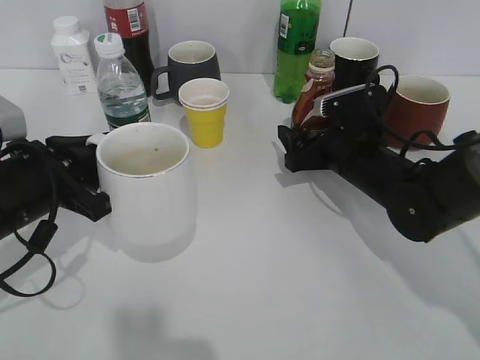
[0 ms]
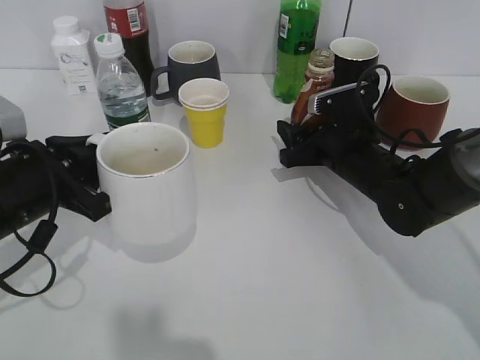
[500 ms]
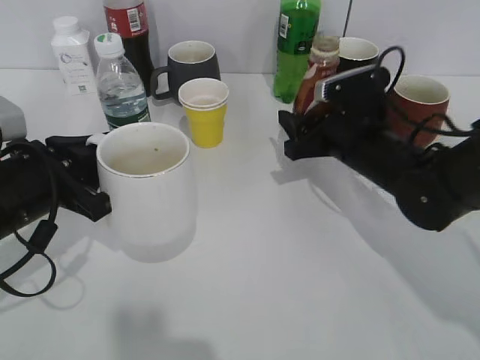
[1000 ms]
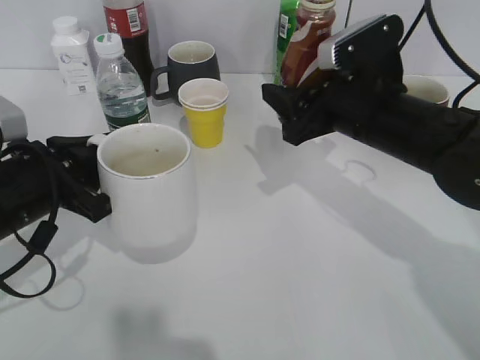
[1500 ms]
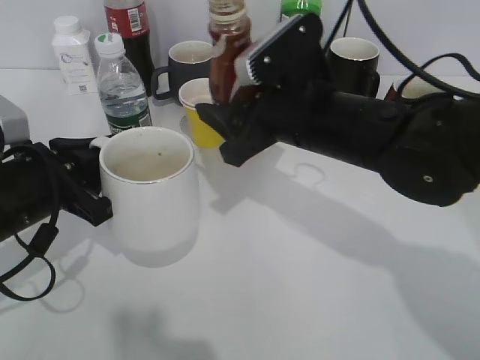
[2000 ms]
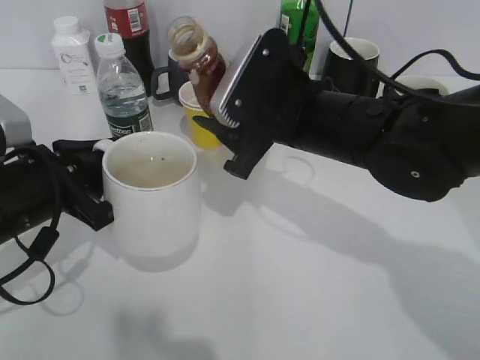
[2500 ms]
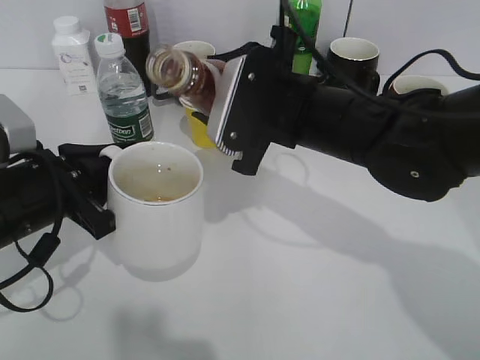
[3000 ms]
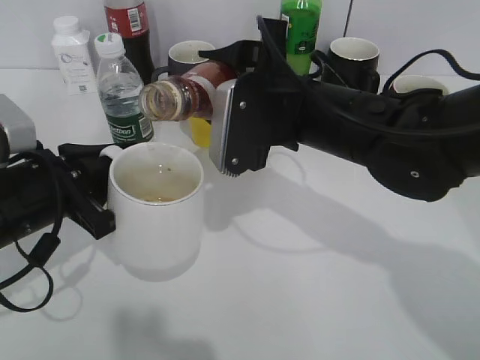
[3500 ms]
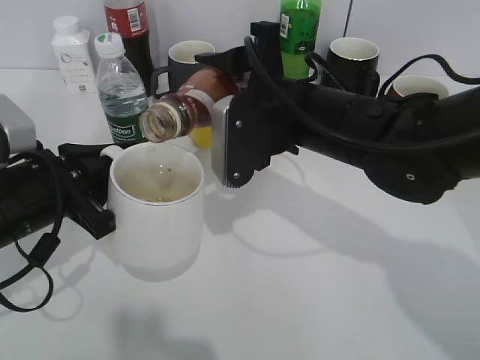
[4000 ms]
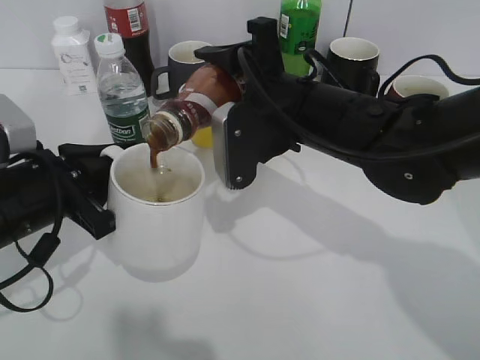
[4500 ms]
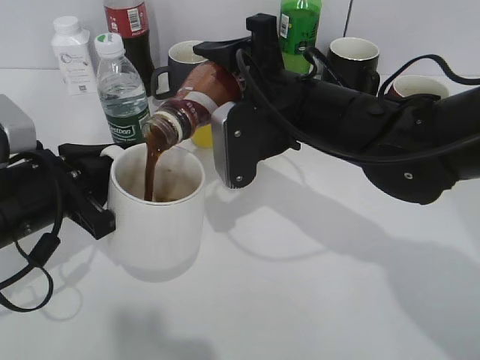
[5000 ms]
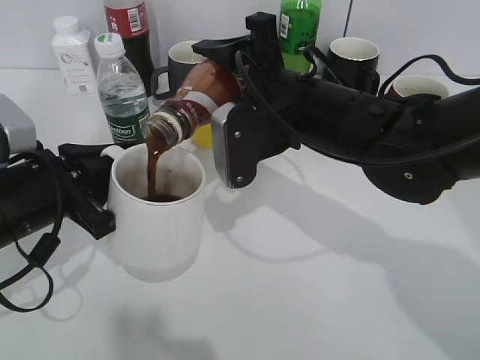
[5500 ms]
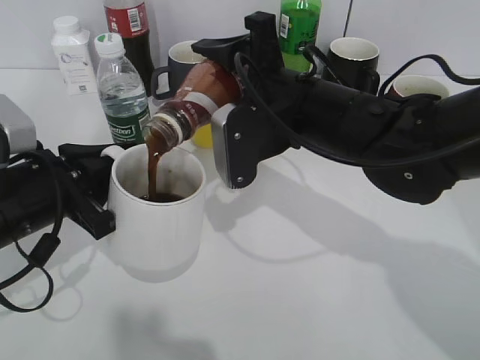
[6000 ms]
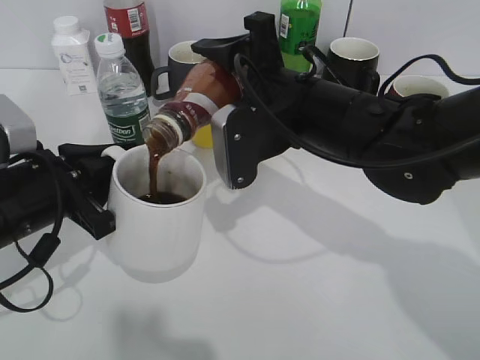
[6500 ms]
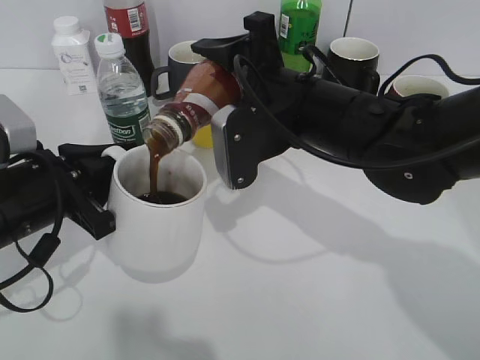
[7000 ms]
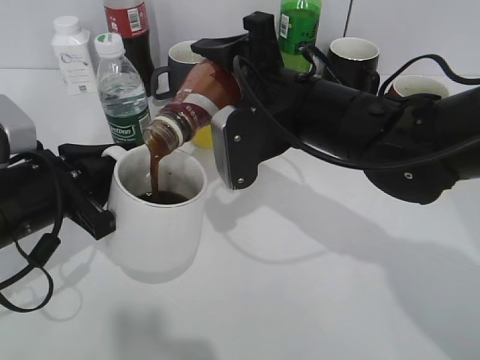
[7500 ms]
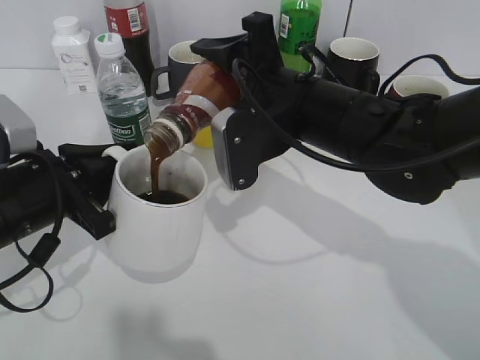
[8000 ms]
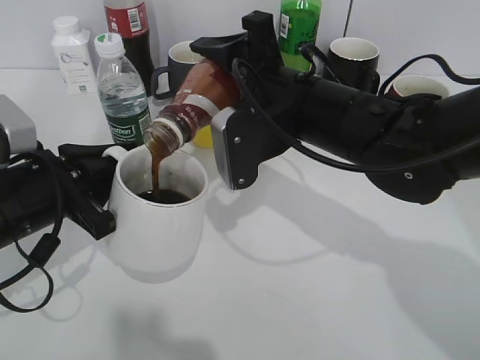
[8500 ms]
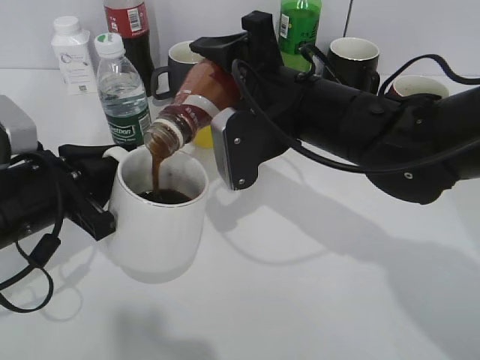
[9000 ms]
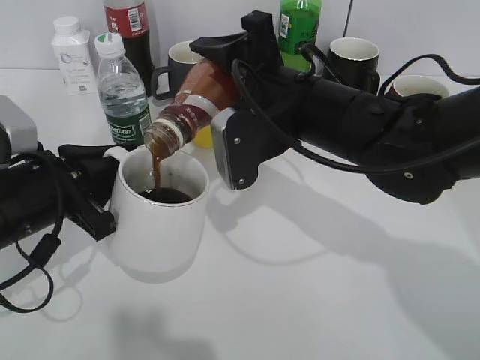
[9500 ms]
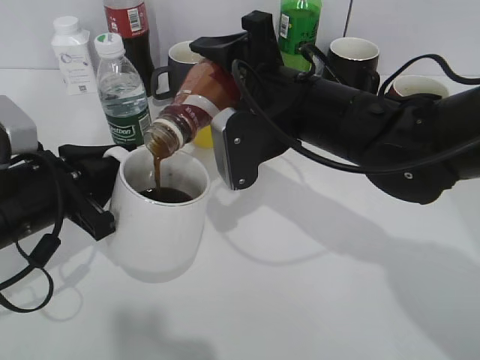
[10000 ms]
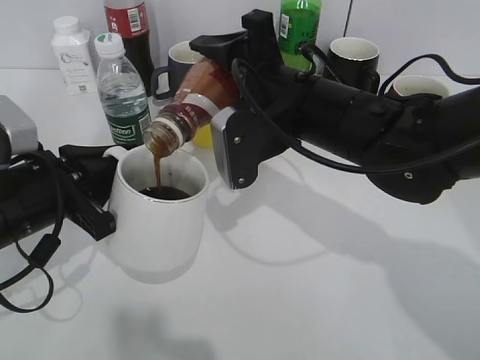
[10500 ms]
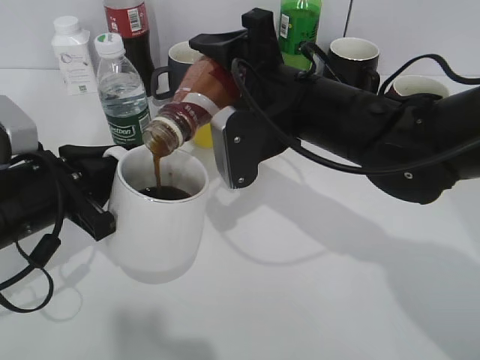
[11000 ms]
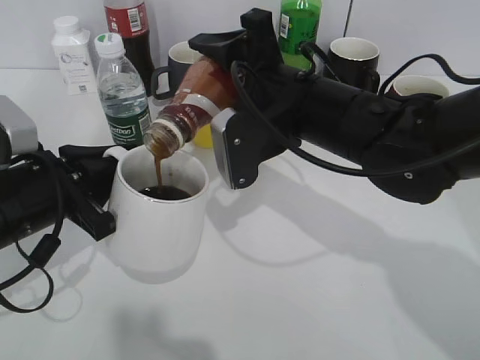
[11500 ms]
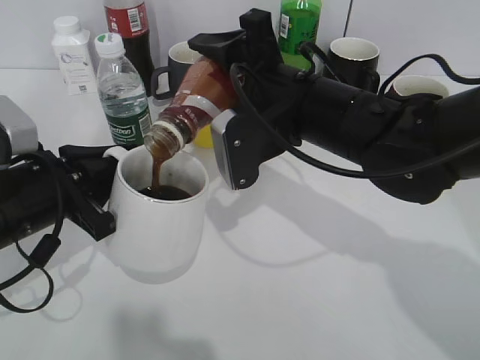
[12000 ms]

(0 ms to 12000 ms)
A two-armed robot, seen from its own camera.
0 ms - 2000 ms: The right gripper travels upward, to the left and backward by some 15 cm, and closes its fingers.
4000 ms - 6000 ms: There are only small adjustments of the grippers.
6000 ms - 10000 ms: Both grippers stay about where they are.
10000 ms - 12000 ms: Both grippers stay put.

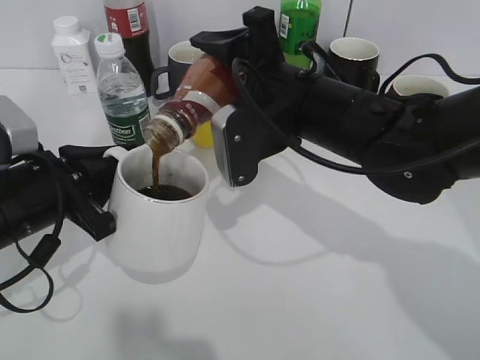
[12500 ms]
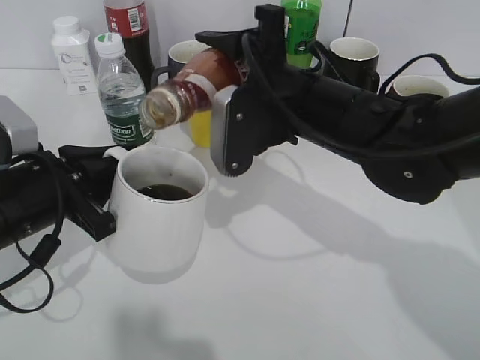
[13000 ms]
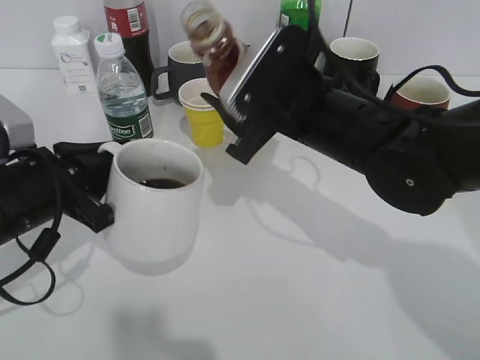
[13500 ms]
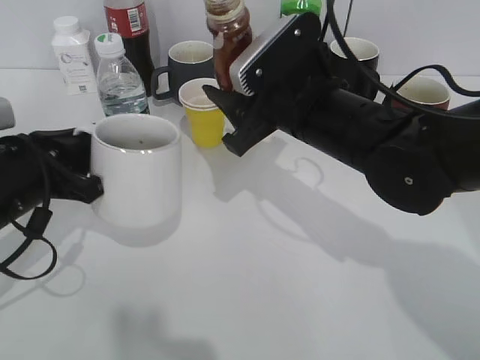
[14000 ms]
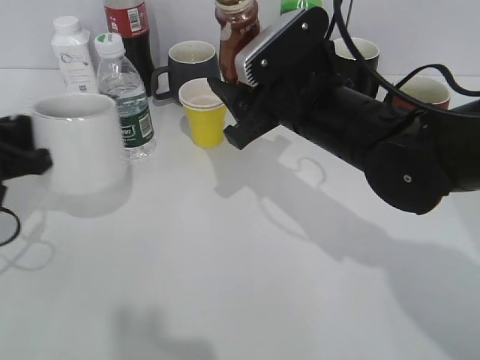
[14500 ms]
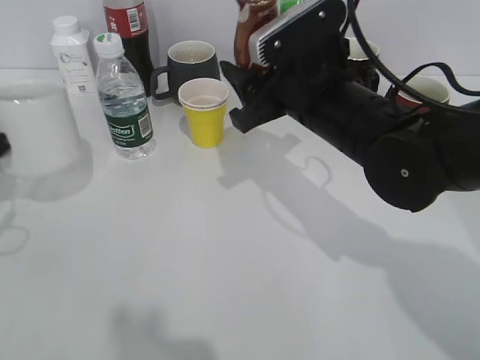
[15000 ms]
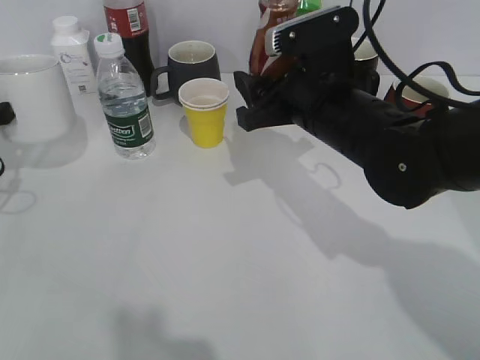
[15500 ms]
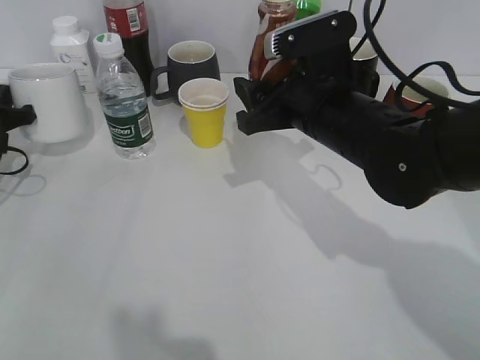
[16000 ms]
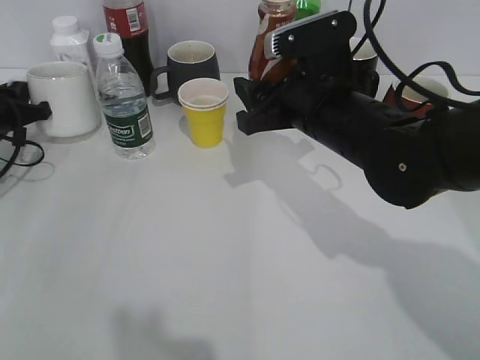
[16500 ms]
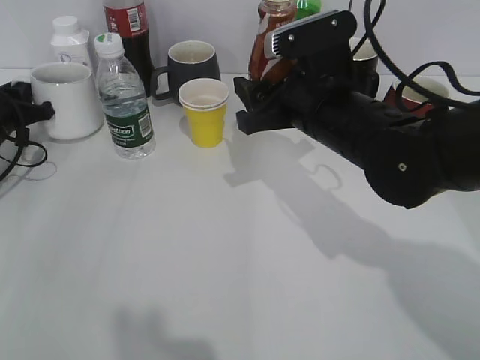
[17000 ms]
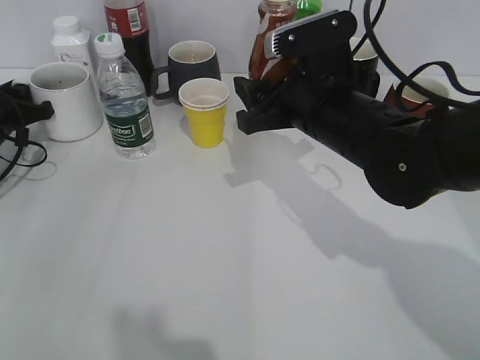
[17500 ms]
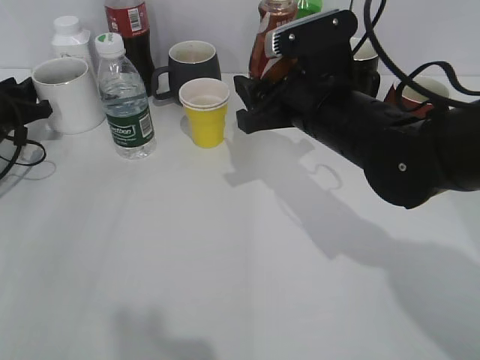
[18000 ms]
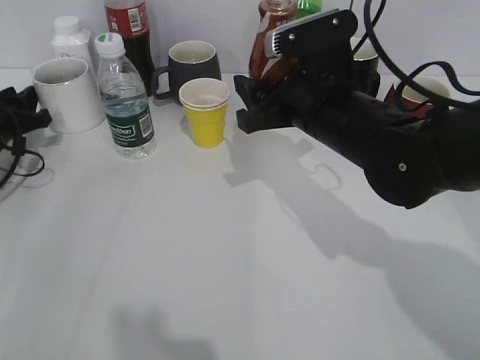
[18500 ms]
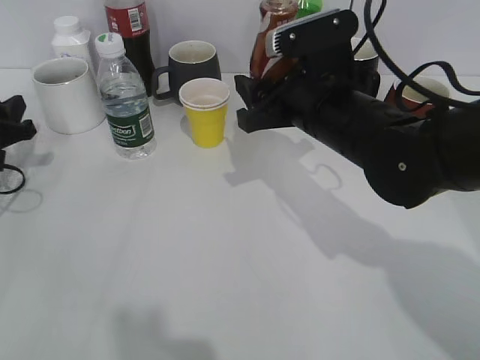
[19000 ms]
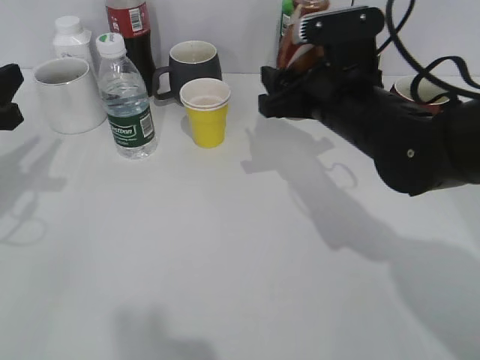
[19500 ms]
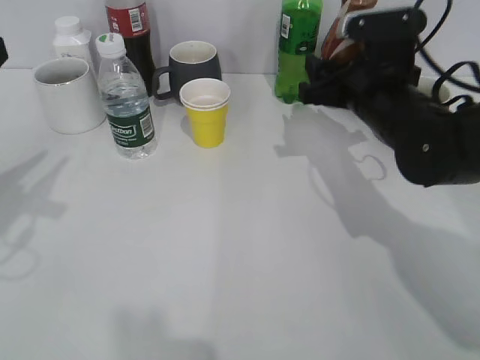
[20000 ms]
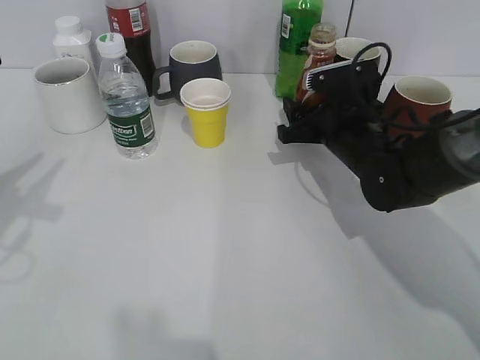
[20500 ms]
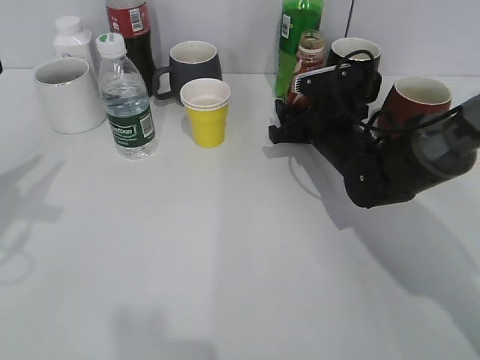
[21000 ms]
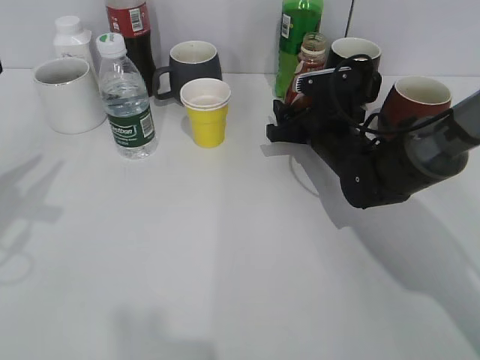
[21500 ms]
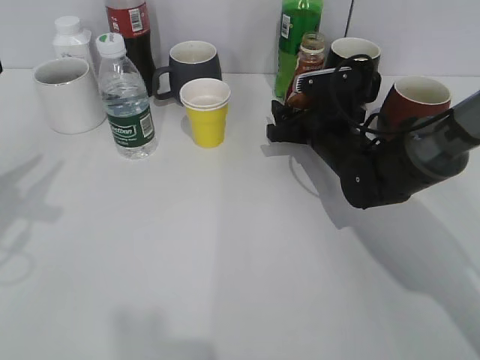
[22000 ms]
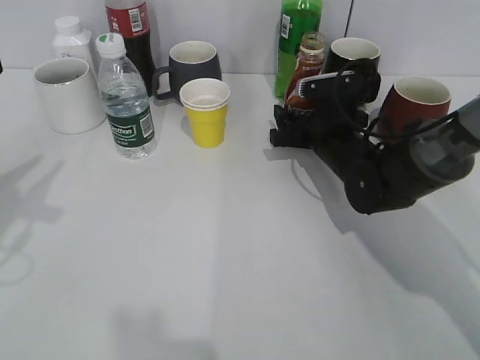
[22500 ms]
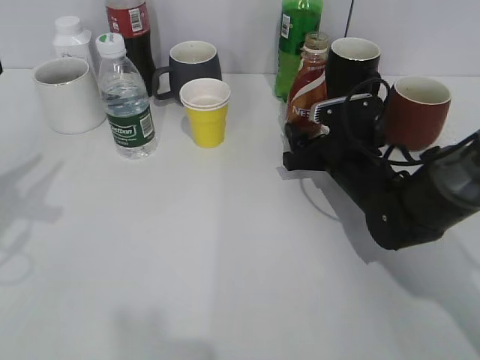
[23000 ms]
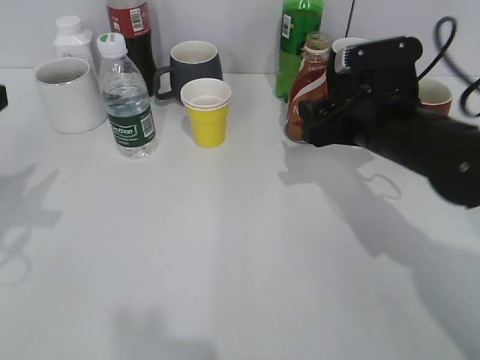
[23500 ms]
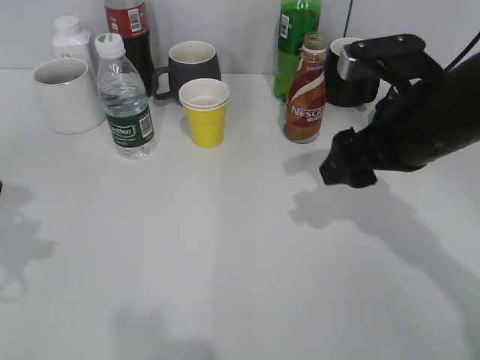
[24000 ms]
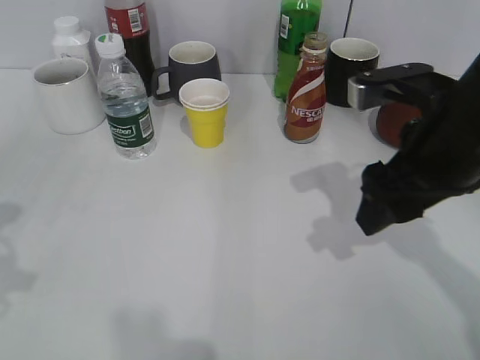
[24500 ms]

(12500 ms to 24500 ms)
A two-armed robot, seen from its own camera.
Step, 13500 ms - 18500 ms: Place the white cup on the table with left gripper.
Step, 19000 ms - 23000 ms: Place the coffee bottle on the table with right gripper.
12500 ms - 14500 ms: The left gripper moves to the left, some 5 cm.
14500 ms - 16500 ms: The left gripper moves forward and to the left, roughly 15 cm.
16500 ms - 18500 ms: The left gripper opens.
18500 ms - 20500 ms: The left gripper is displaced backward and upward by roughly 25 cm. Meanwhile the right gripper moves downward and forward, approximately 10 cm.
20500 ms - 22500 ms: The right gripper opens its fingers.
22500 ms - 24500 ms: The right gripper heads upward and backward, covering about 20 cm, while the left gripper moves about 5 cm.

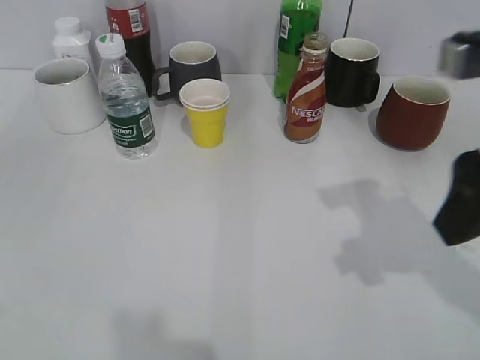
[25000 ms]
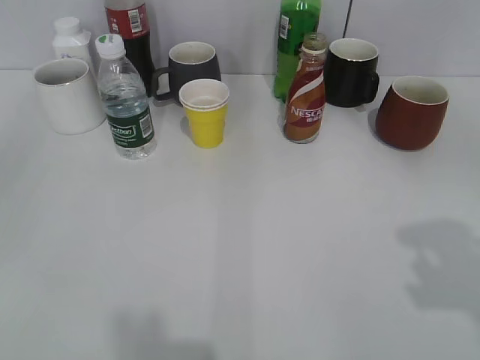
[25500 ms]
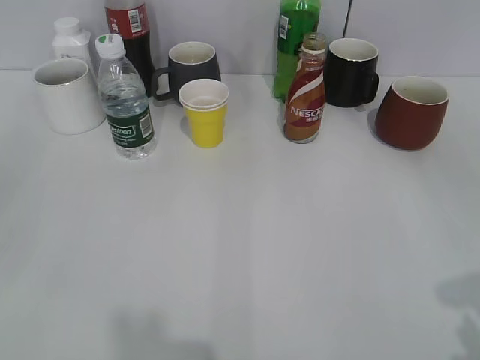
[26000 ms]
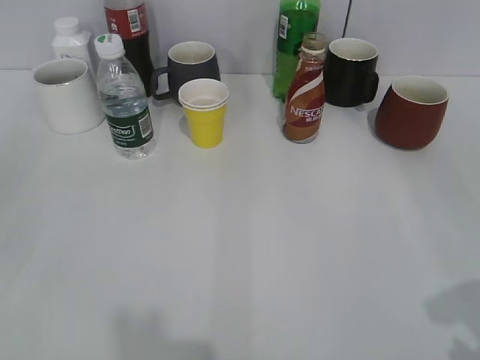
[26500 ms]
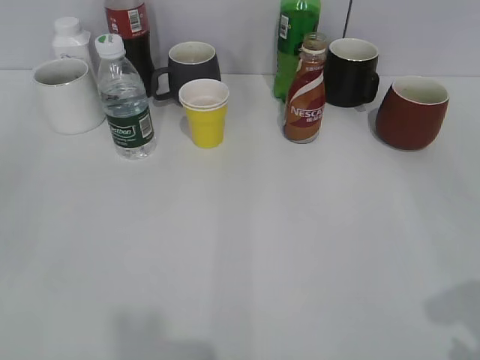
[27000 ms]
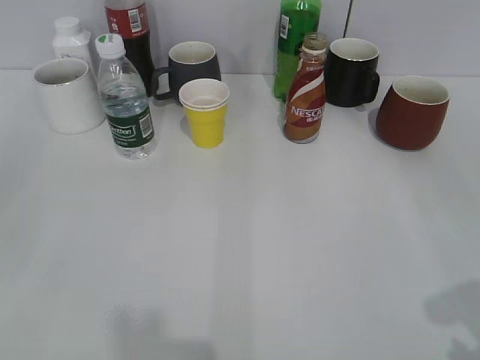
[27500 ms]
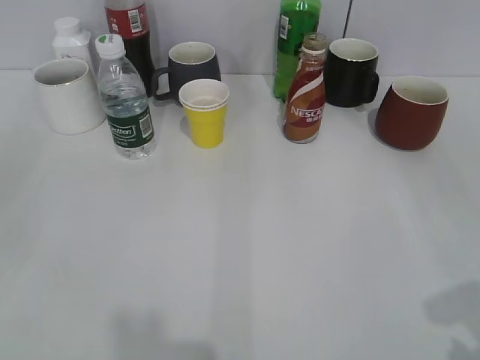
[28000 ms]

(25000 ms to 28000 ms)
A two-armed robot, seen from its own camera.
25000 ms - 26500 ms: The right gripper is displaced backward and to the right by roughly 15 cm. The left gripper moves approximately 5 cm, and opens up.
26500 ms - 28000 ms: Neither gripper changes place.
